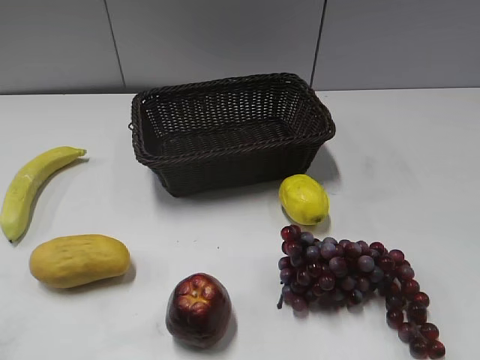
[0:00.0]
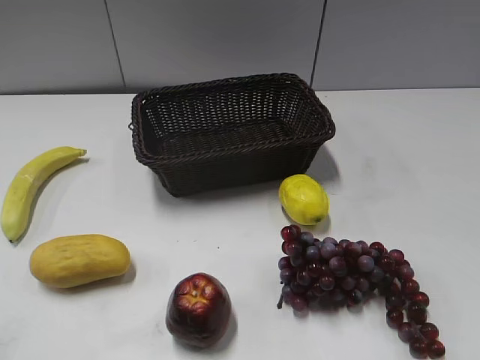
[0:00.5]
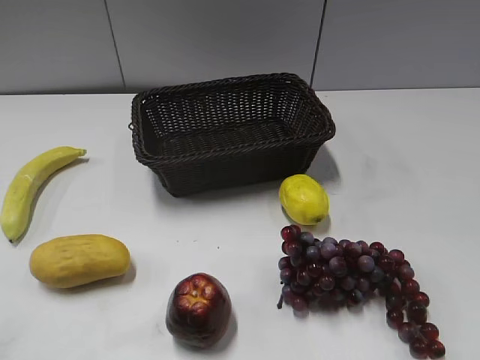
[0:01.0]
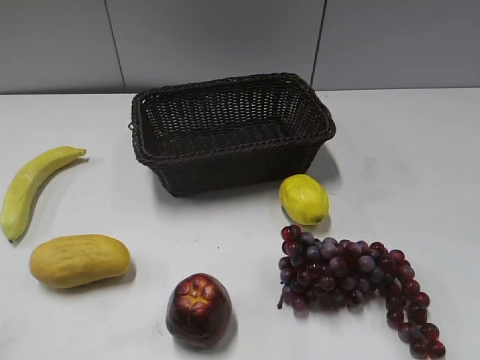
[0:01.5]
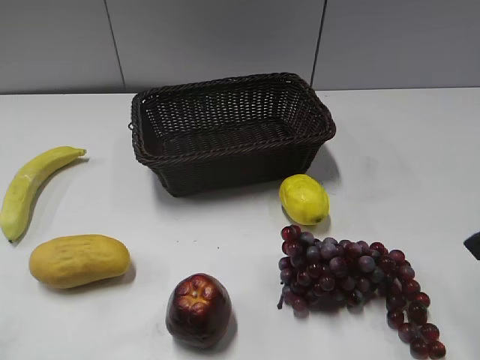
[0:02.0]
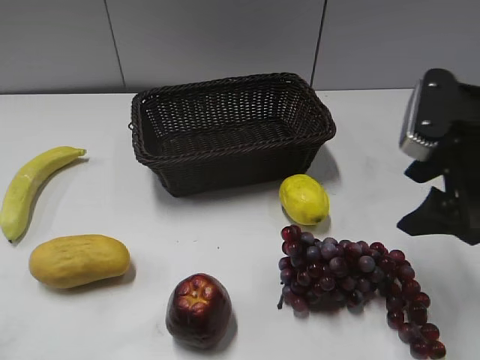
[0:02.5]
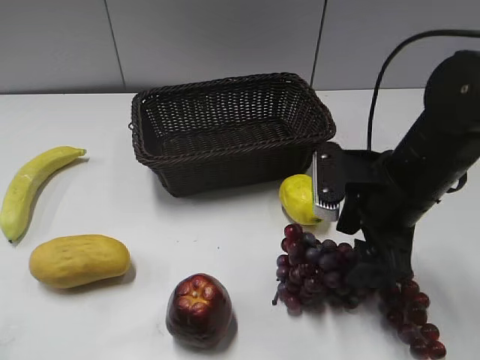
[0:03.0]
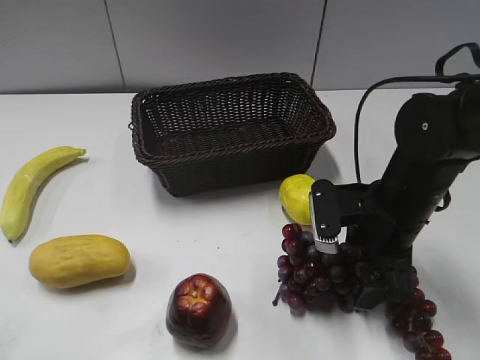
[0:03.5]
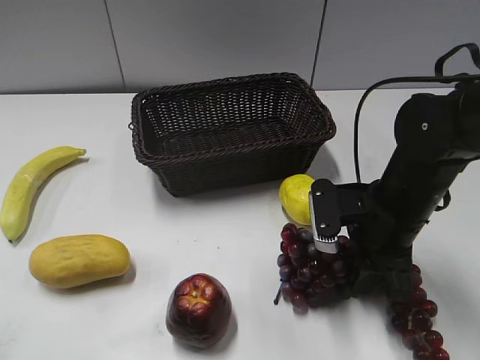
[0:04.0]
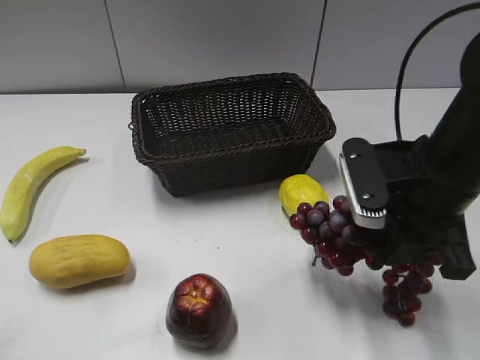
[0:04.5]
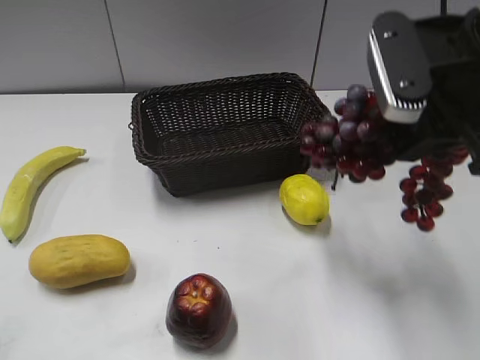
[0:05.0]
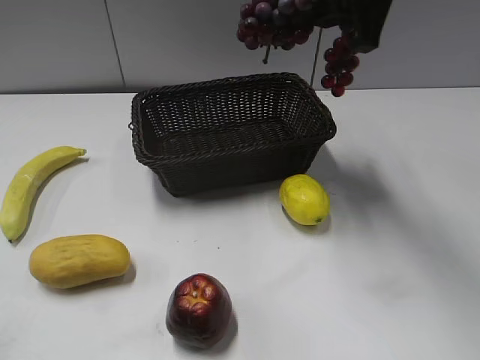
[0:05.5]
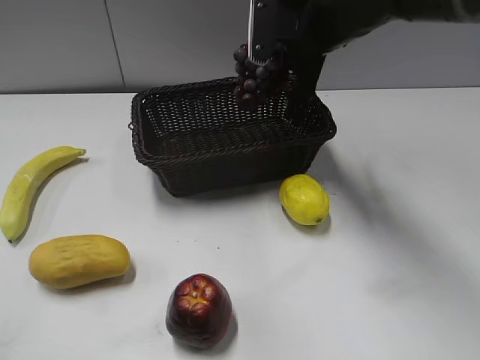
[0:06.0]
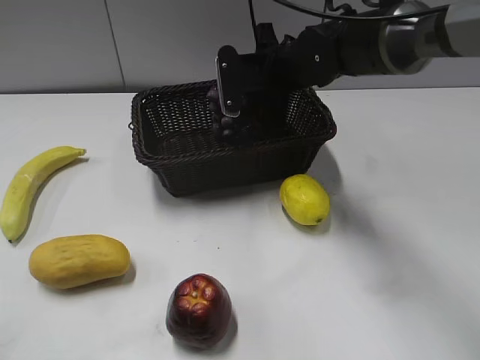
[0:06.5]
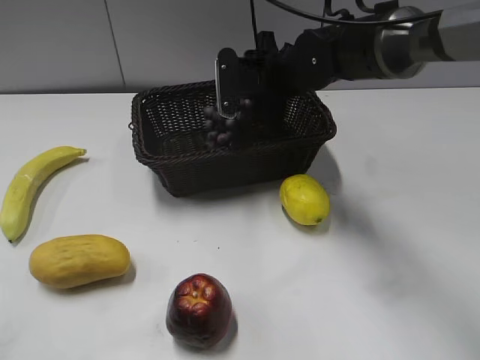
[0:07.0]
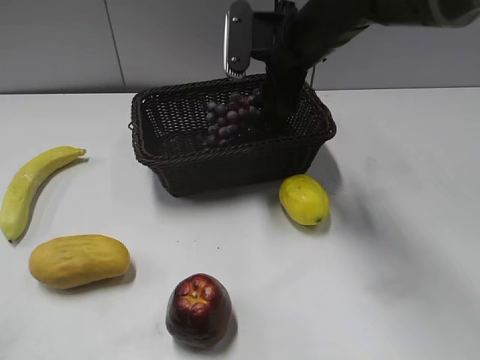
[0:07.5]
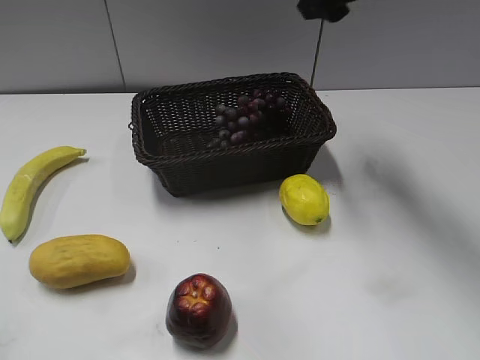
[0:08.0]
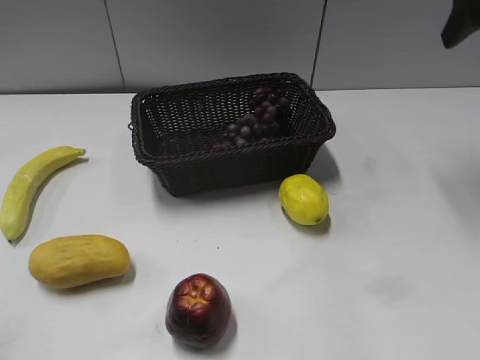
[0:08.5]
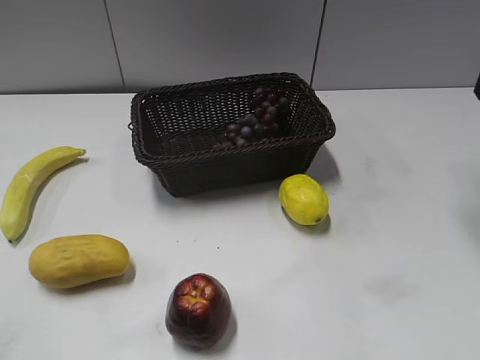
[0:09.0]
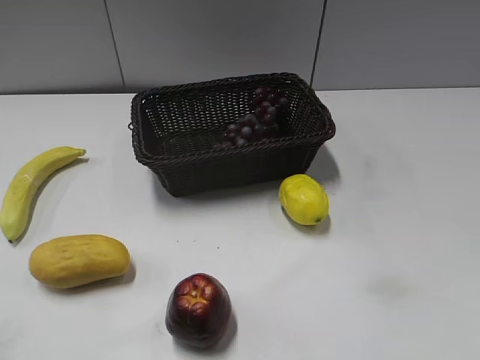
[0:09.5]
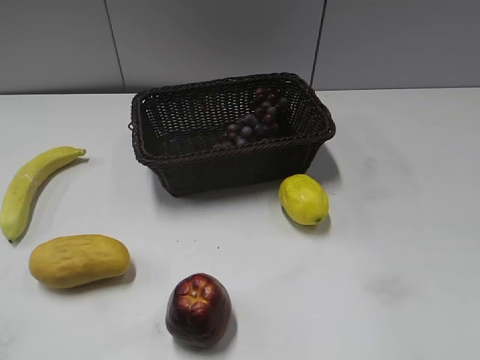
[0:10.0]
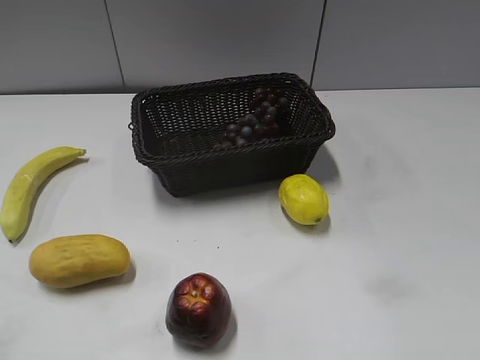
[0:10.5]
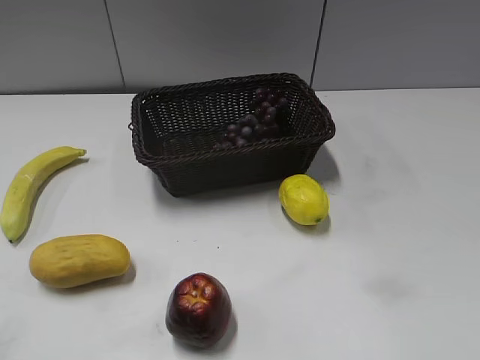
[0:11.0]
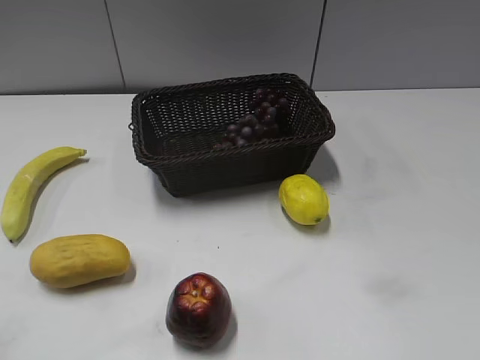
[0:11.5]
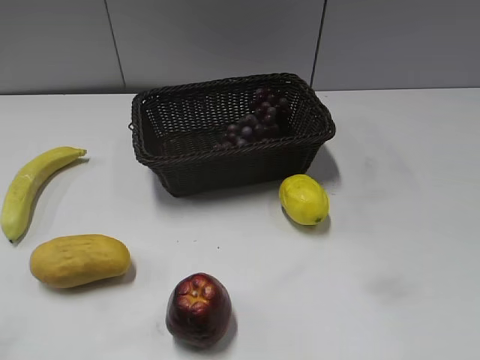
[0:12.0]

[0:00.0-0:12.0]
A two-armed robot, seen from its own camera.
0:02.0 to 0:04.0: The right gripper is displaced downward, to the left and forward by about 20 cm, and closes.
0:04.0 to 0:06.0: The right gripper goes approximately 20 cm forward, upward and to the left.
0:06.0 to 0:08.0: The right gripper moves upward, about 10 cm, and opens its fingers.
0:08.0 to 0:10.0: The right gripper goes some 30 cm backward and to the right.
